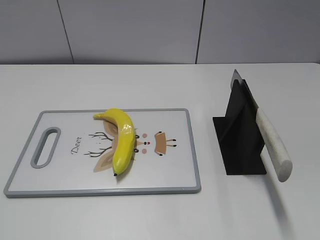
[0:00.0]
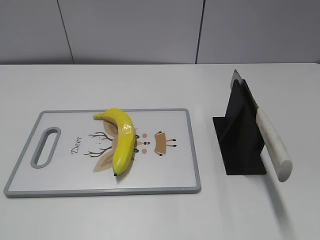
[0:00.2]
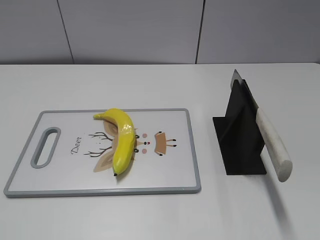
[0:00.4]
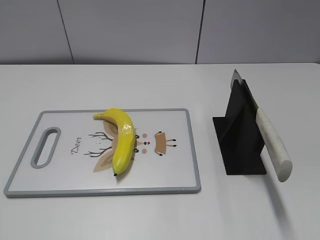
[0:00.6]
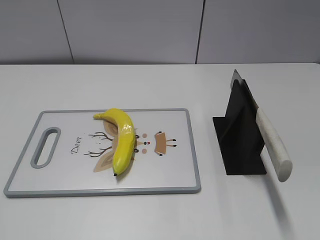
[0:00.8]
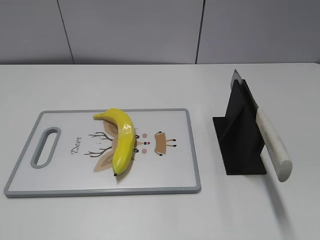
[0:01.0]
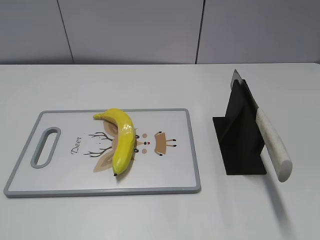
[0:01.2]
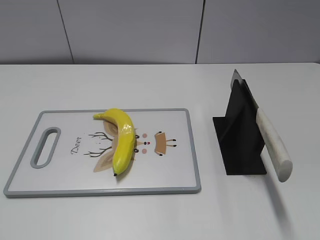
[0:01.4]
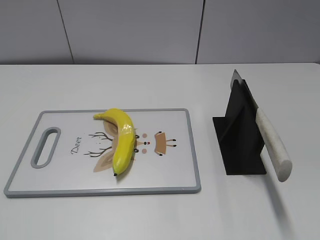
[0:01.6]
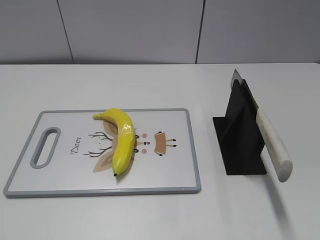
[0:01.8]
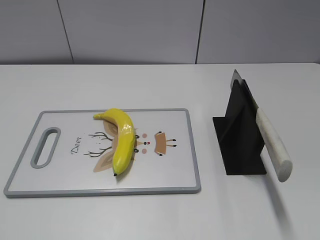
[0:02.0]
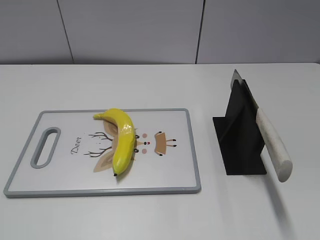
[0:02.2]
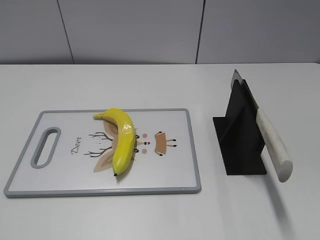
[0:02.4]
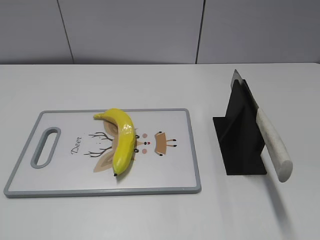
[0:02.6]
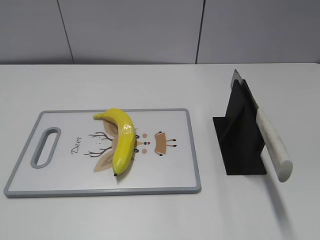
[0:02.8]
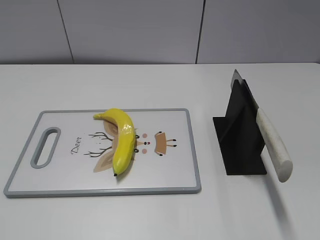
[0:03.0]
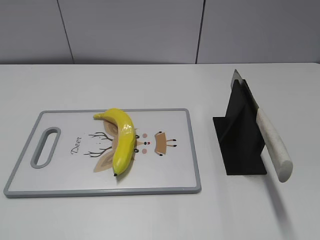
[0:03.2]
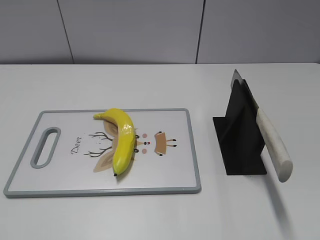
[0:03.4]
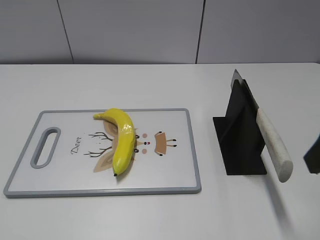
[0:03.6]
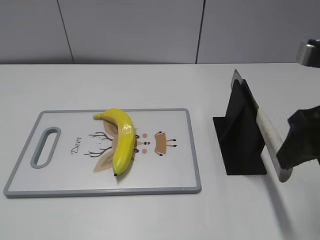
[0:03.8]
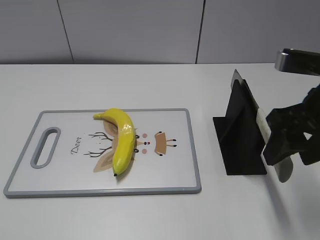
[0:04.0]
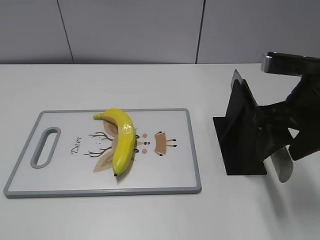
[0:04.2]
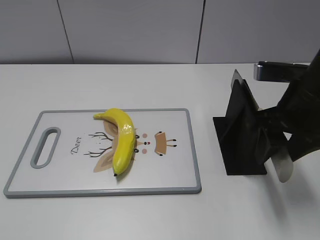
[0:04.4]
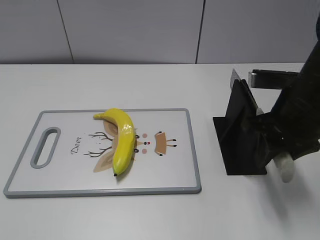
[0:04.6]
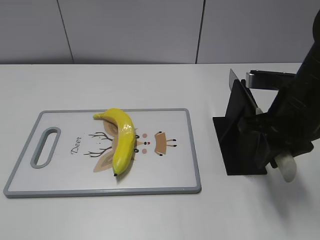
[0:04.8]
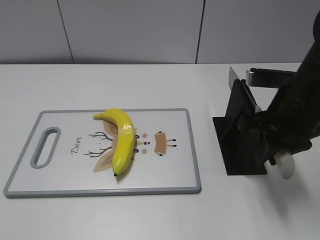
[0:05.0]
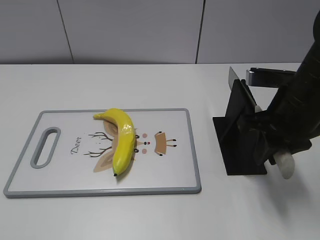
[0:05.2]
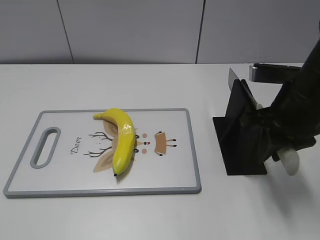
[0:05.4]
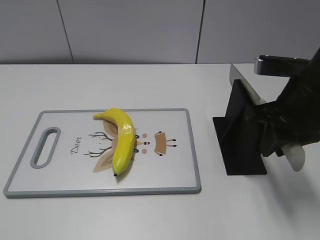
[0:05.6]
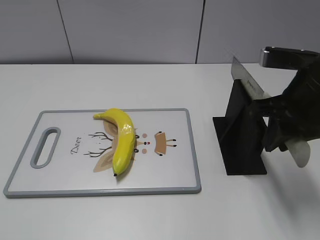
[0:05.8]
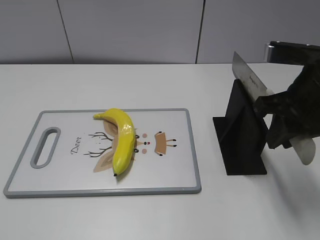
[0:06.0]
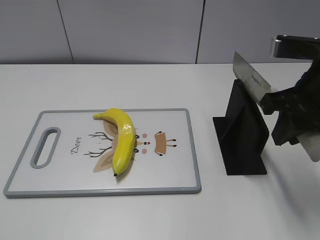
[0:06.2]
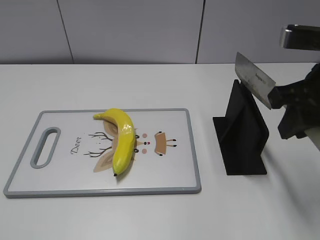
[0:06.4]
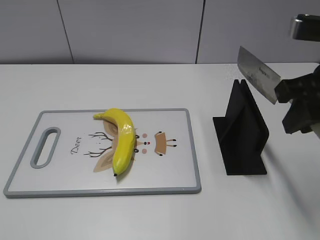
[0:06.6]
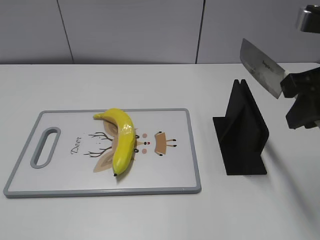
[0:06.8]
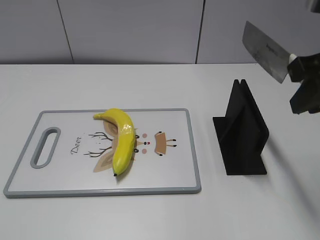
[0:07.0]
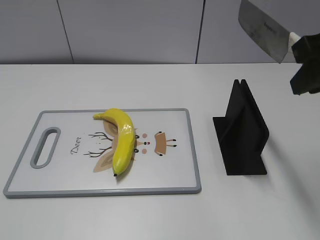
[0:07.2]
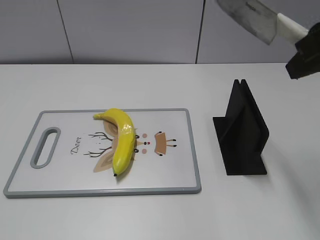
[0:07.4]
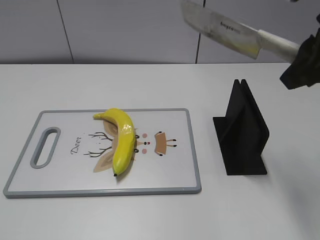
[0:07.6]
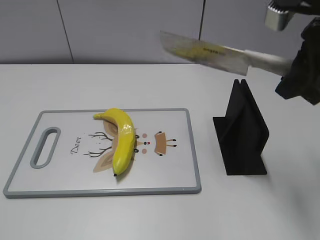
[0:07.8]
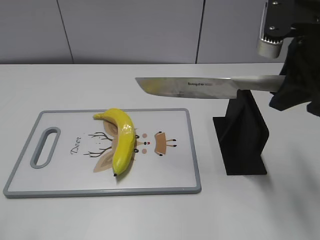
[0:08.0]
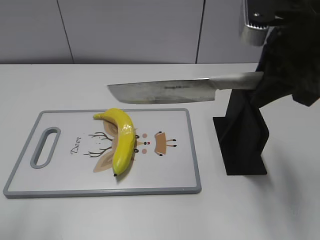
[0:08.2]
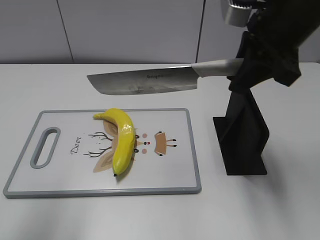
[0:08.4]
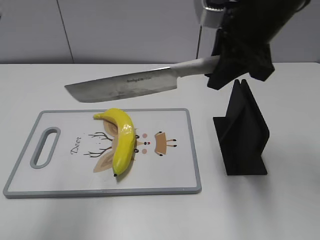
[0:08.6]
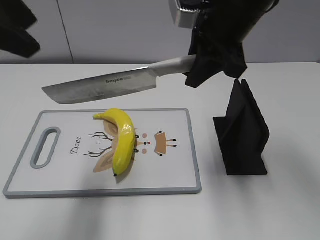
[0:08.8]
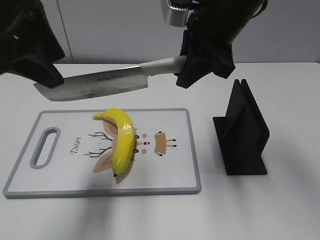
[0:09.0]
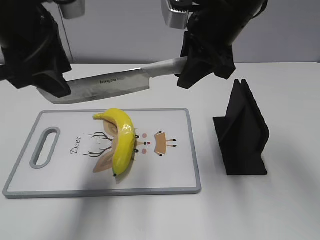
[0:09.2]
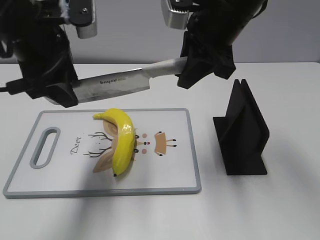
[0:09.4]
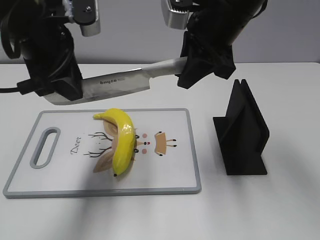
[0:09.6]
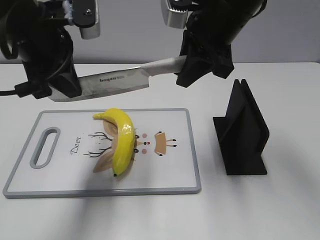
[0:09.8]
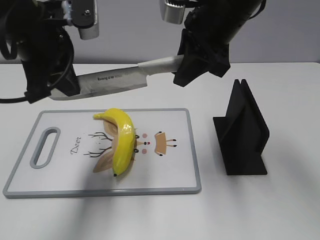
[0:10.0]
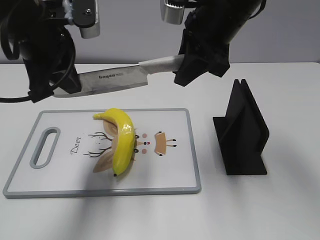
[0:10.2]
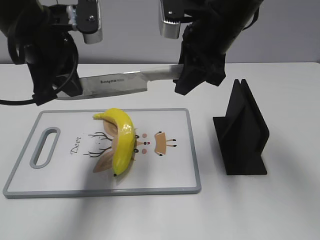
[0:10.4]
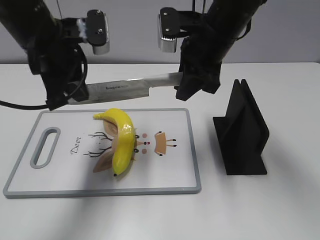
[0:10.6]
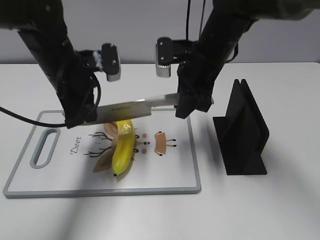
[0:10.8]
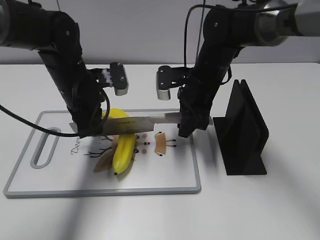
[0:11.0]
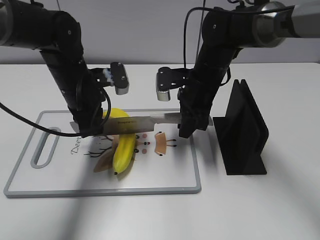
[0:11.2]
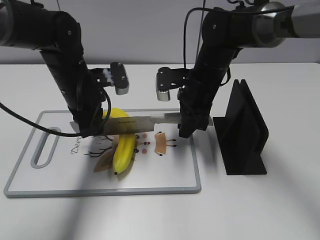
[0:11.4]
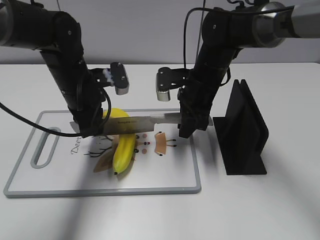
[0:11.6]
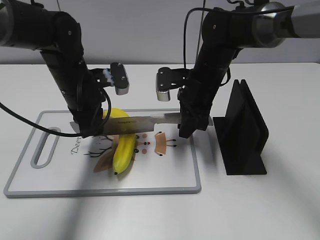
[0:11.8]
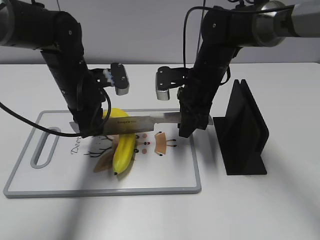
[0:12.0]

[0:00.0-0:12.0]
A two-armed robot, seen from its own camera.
Task of the whole recording: cut plastic banana.
Step, 0:00.0 to 0:05.8: Grab the knife handle with your right hand.
0:03.0 to 0:04.4: The right gripper goes approximately 20 cm forward, to the left and downward.
0:04.4 to 0:06.0: The right gripper closes its fingers.
0:06.0 to 0:07.6: The right gripper moves upward, some 10 cm.
0:07.6 to 0:09.0: The left gripper moves forward and to the right, roughly 25 cm. The right gripper goes some 15 cm to the left and forward.
0:09.0 to 0:10.4: The left gripper is displaced downward and forward by some 10 cm, and closes up.
0:10.4 to 0:12.0: Both grippers travel together downward, about 15 cm.

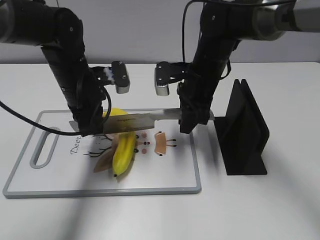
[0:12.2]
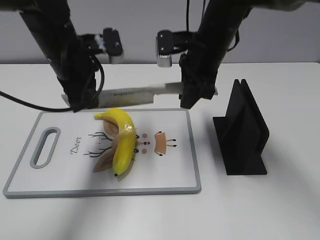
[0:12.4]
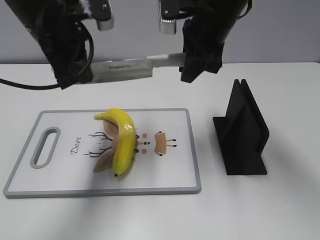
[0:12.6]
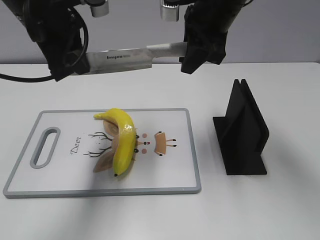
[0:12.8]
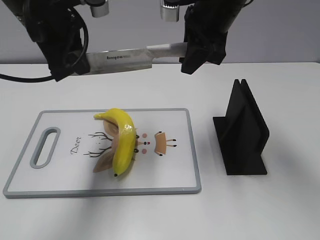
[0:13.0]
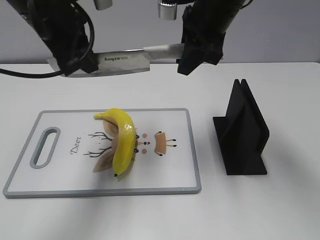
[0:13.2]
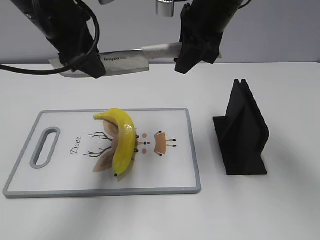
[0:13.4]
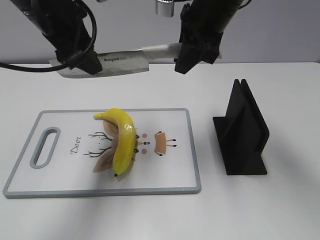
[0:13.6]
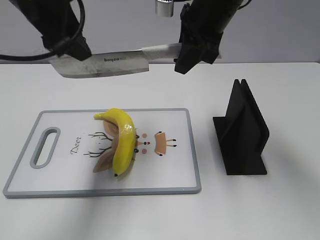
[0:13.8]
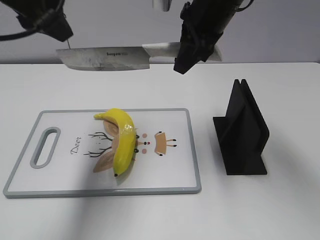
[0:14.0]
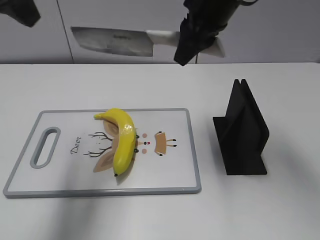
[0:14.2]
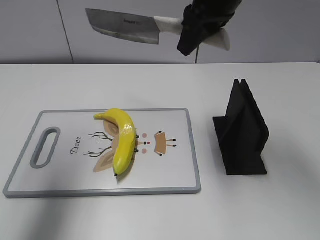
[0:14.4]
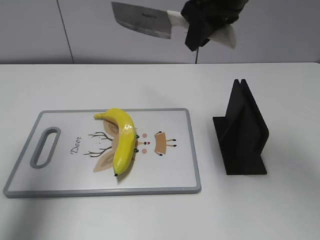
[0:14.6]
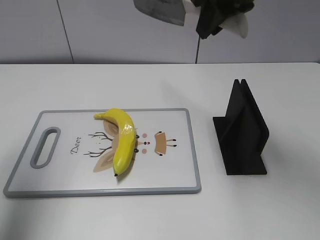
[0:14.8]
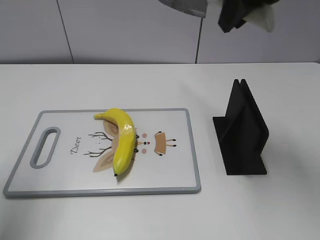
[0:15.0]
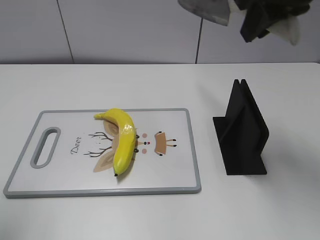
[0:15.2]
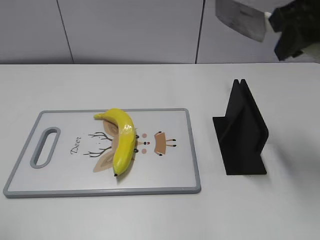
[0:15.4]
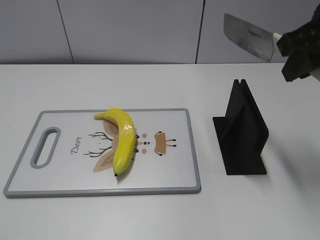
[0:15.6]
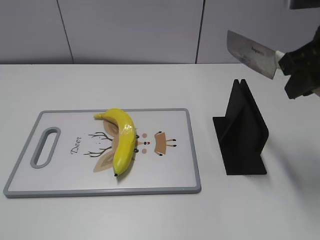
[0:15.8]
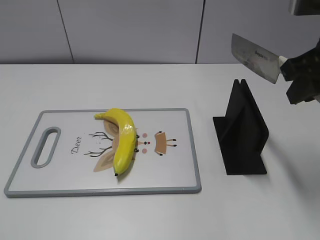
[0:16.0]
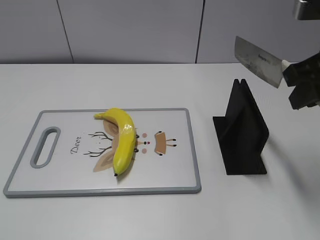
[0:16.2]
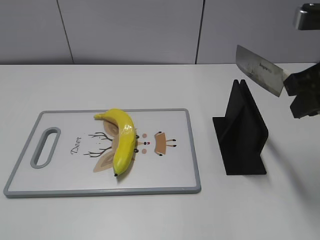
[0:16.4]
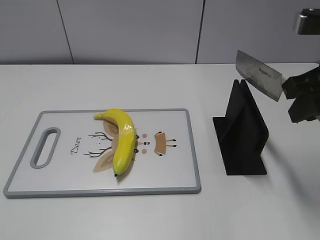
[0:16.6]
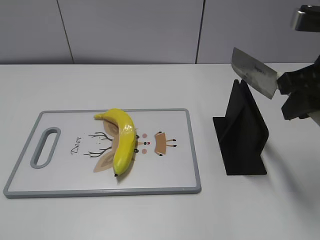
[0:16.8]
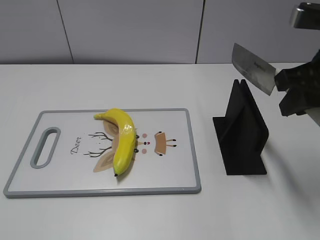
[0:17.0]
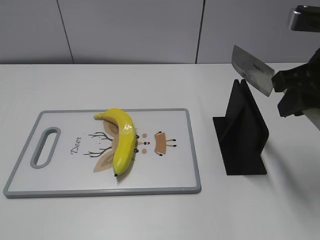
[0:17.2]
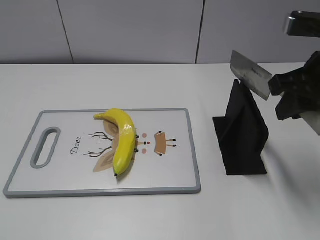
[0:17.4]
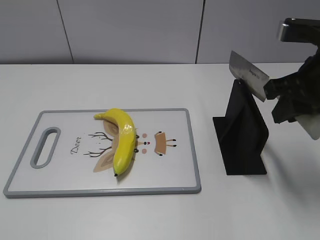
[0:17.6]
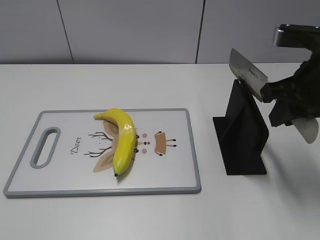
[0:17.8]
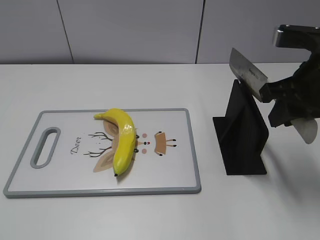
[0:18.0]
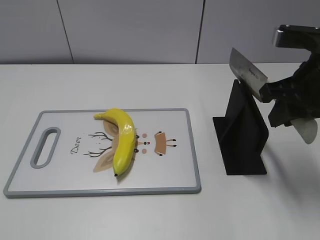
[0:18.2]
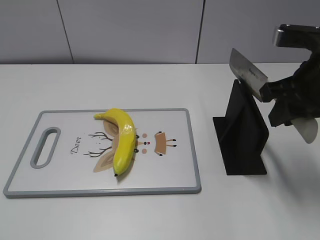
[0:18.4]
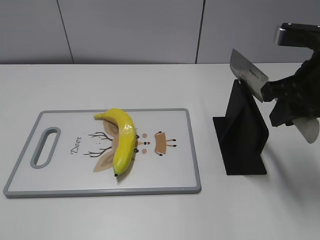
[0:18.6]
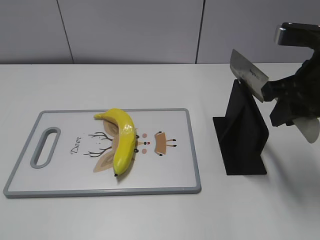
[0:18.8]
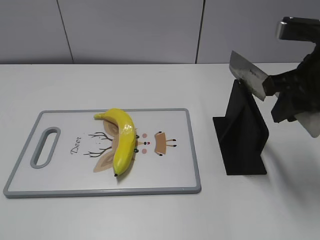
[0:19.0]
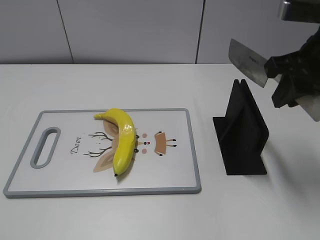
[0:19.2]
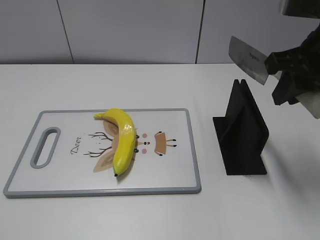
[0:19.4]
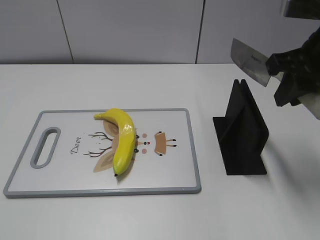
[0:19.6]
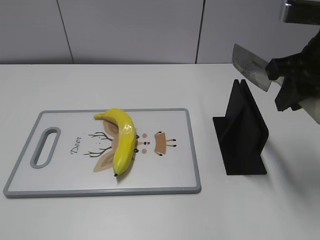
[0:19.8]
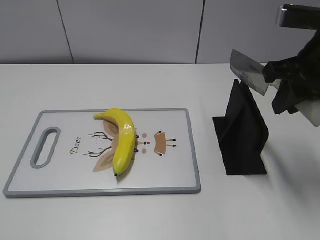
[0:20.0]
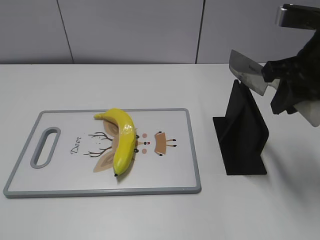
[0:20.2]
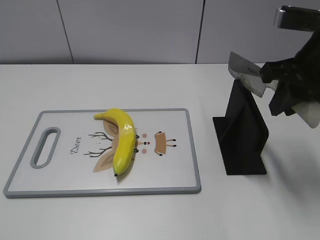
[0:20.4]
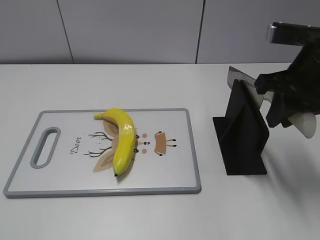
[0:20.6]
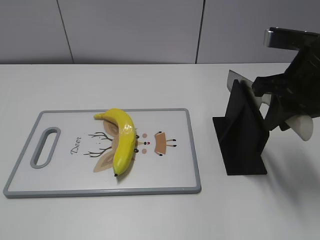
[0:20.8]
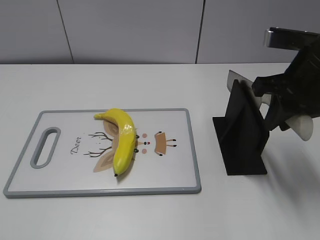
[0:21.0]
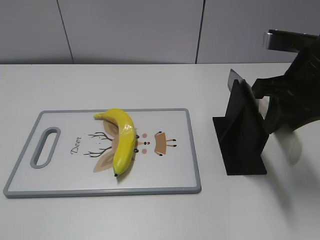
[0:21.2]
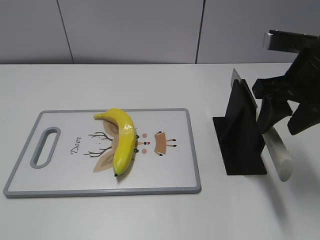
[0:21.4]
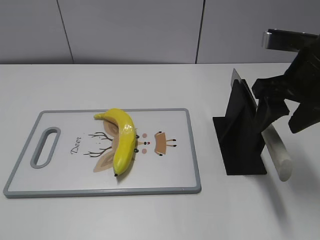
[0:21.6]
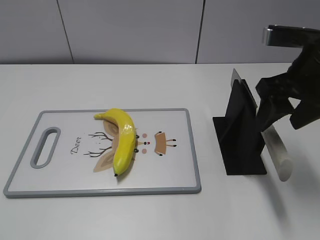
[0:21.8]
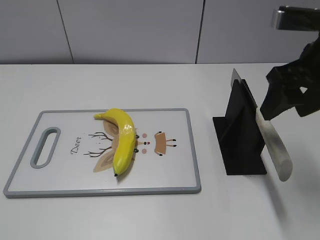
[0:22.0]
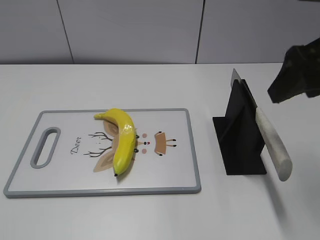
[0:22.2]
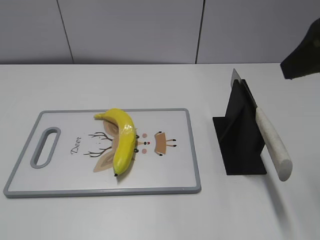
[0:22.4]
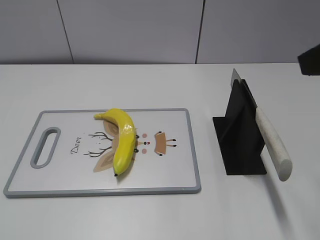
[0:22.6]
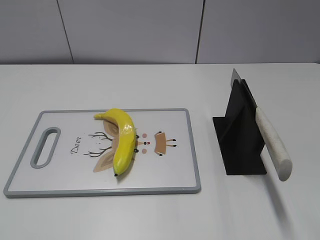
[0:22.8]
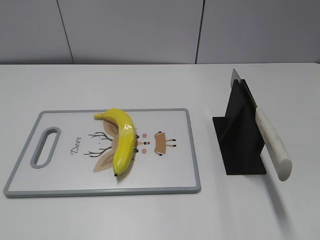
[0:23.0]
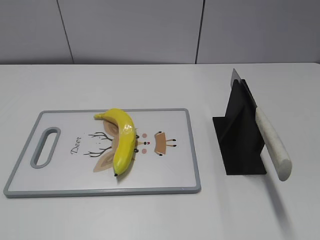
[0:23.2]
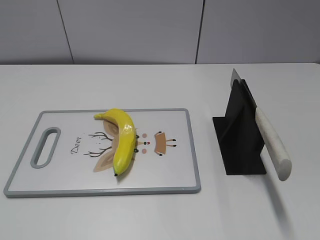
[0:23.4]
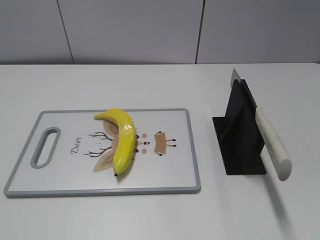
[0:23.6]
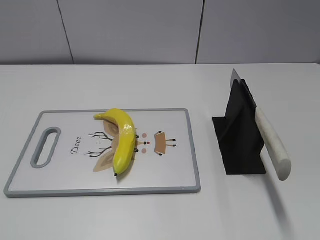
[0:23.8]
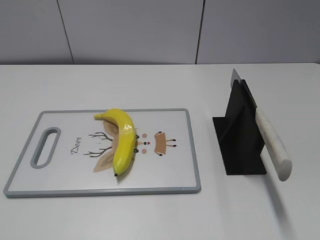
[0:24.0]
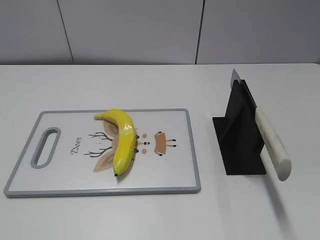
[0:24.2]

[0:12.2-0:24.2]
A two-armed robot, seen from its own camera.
Task of the whole recording: cut plastic banana.
Step, 0:12.6 to 0:13.6: Cut the banana with your right hand.
Step, 0:13.8 to 0:16.0: Secure the blade with your left hand.
0:12.2 to 0:13.8: Both grippers travel together upward, about 15 cm. The left gripper opens its fingers.
0:13.8 to 0:15.2: The left gripper moves backward and to the left, some 20 cm, while the right gripper moves upward, to the right and backward, some 10 cm.
0:15.2 to 0:16.6: The right gripper is displaced downward, backward and to the right by about 15 cm. Meanwhile the left gripper heads backward and downward, covering some 20 cm.
0:16.6 to 0:21.2: The grippers move only a little.
0:21.2 to 0:22.6: The right gripper travels upward and backward by roughly 15 cm, and opens its fingers.
0:22.6 to 0:24.2: The right gripper is displaced backward and downward by approximately 20 cm.
